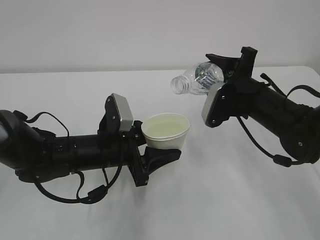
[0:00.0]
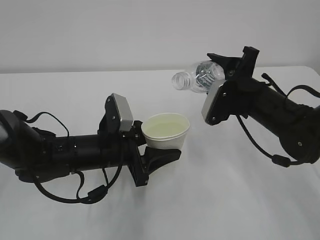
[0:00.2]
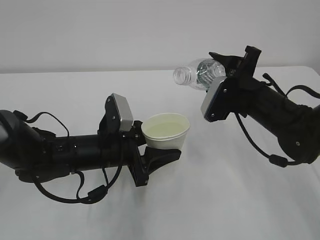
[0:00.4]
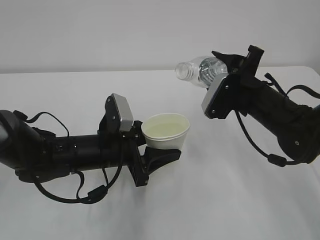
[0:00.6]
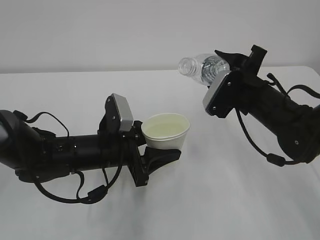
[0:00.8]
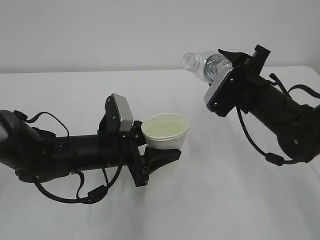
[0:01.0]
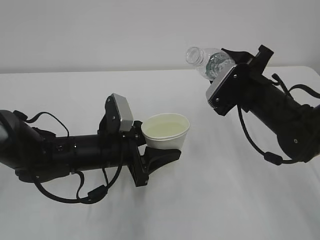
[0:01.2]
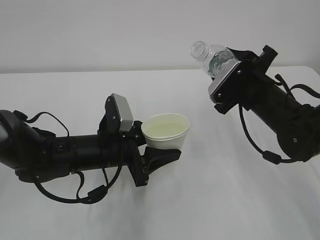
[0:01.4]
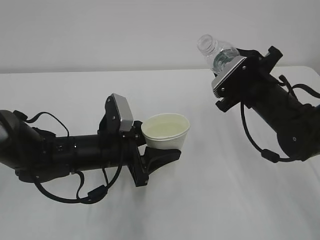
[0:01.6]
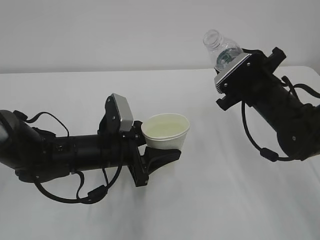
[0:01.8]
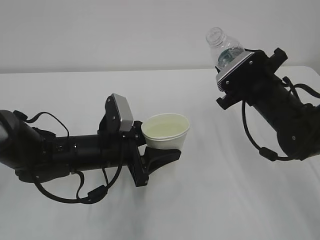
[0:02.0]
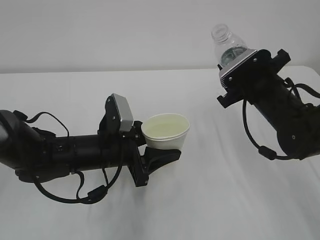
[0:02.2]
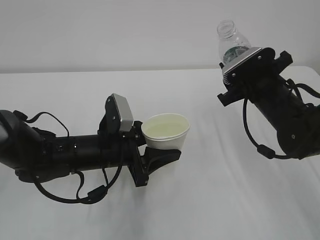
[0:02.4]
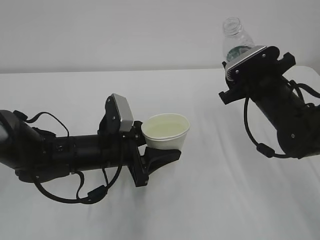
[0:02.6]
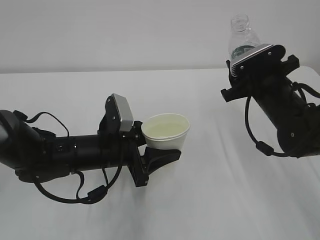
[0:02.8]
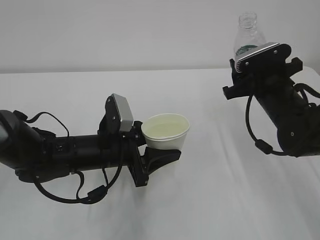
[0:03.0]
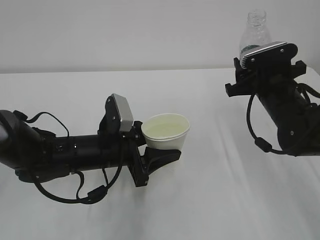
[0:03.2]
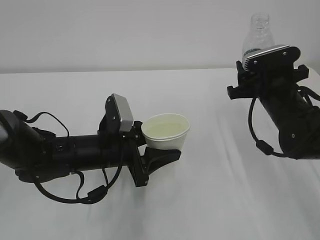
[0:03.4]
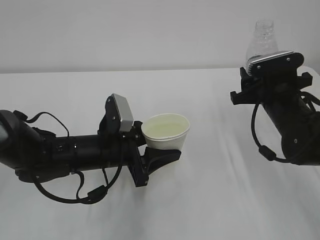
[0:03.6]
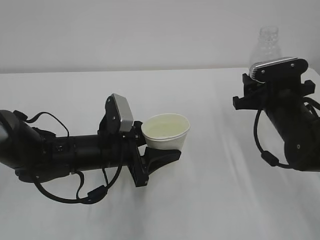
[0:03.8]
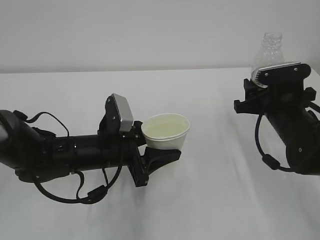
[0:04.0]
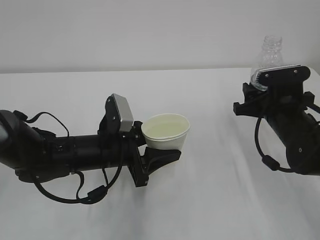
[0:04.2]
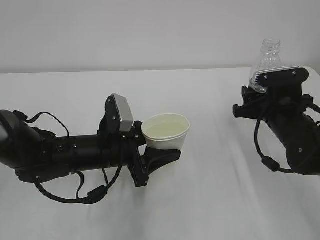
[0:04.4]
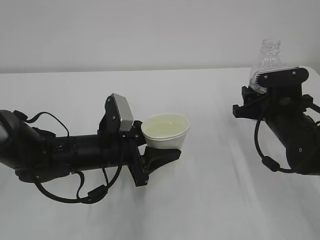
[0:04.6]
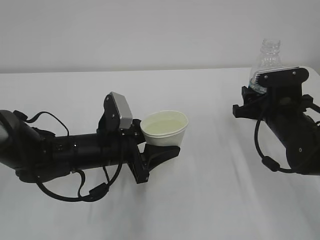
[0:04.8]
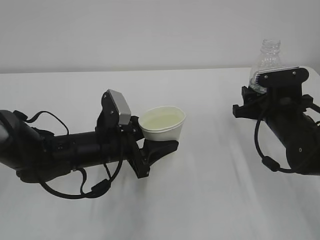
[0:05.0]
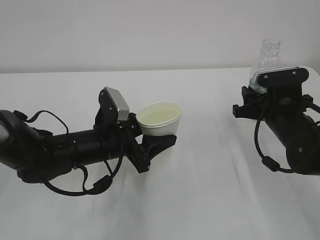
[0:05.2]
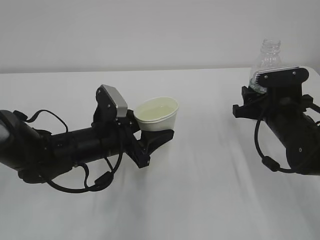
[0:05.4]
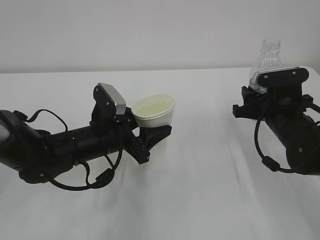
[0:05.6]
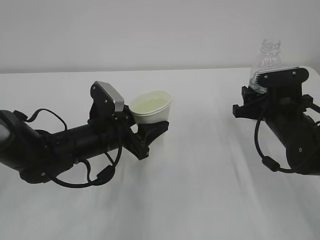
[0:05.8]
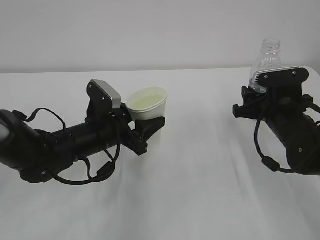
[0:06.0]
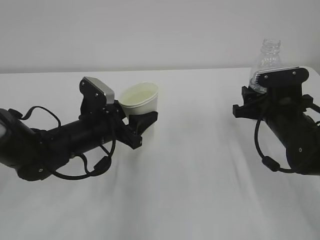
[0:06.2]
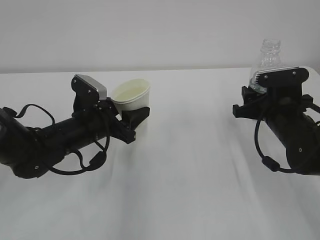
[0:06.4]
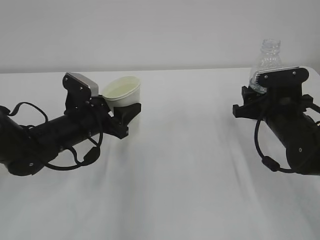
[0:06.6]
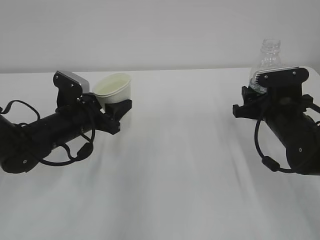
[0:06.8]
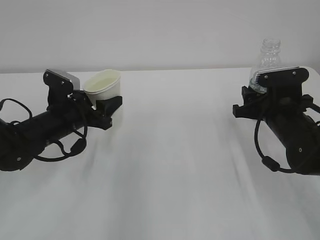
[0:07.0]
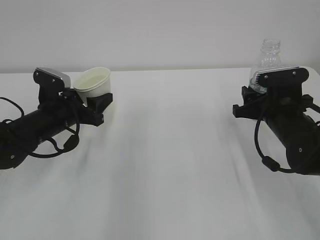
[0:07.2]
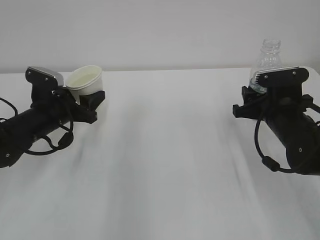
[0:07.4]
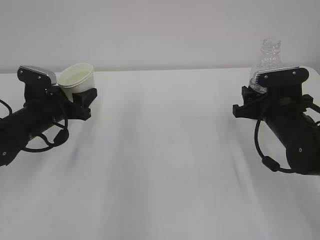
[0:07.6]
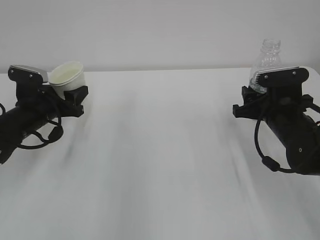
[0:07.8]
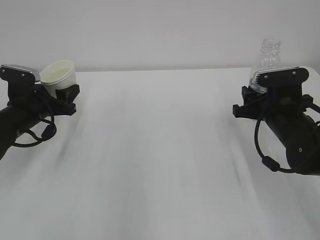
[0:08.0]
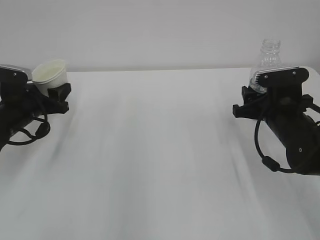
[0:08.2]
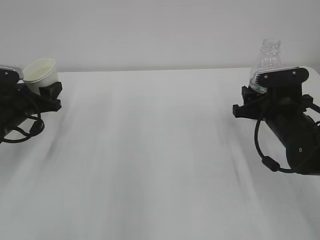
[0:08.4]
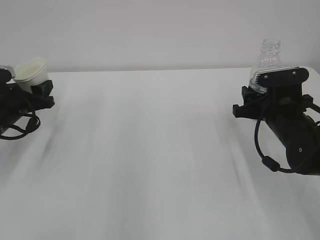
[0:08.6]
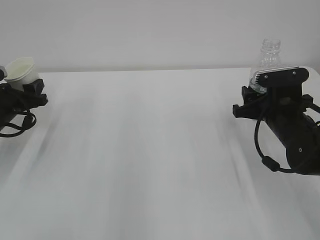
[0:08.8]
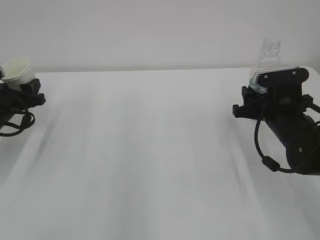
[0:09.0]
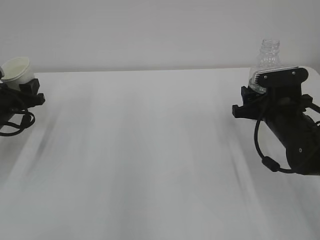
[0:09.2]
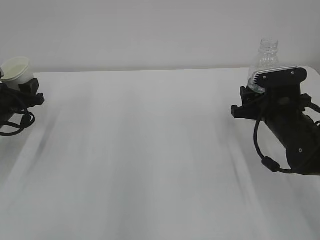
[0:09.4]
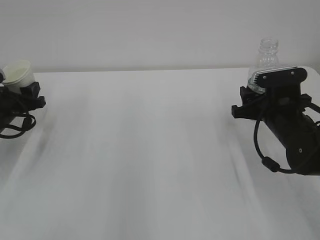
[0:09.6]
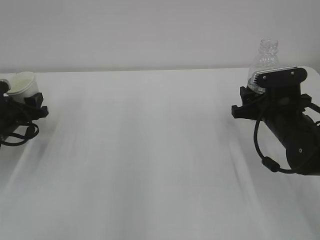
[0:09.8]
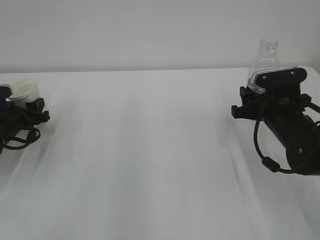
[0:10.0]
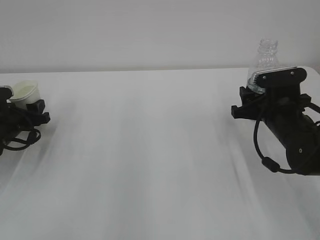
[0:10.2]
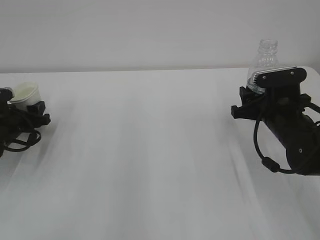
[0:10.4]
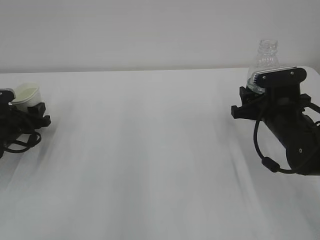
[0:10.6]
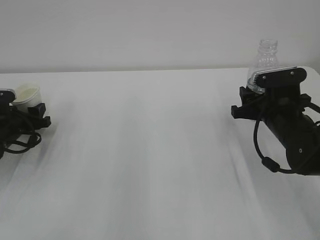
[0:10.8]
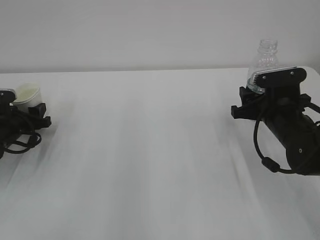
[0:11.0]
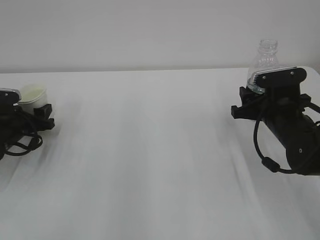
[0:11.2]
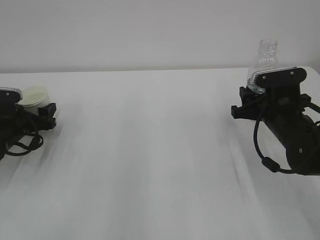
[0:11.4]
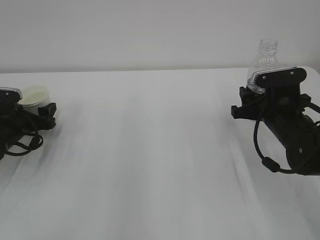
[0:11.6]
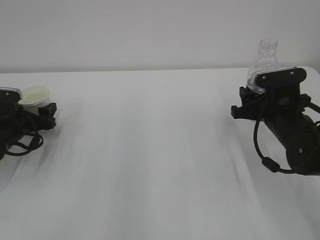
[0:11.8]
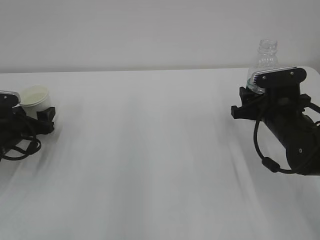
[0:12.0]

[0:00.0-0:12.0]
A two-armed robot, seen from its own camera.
0:04.4 to 0:06.0: There are only small adjustments of the grippers.
0:06.0 to 0:07.6: The left gripper travels to the left and forward by about 15 cm.
0:07.6 to 0:09.0: The left gripper is displaced to the left by about 10 cm.
0:09.0 to 0:10.4: The grippers move only a little.
0:10.4 to 0:12.0: The left gripper opens up.

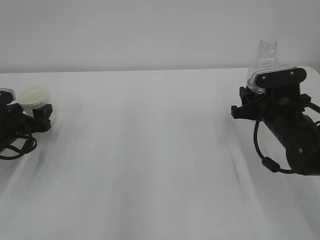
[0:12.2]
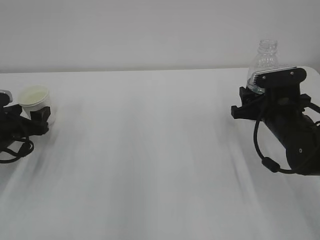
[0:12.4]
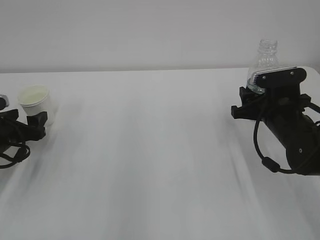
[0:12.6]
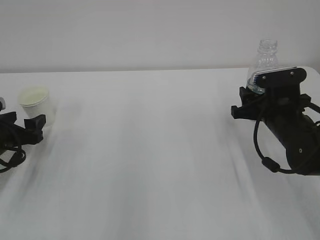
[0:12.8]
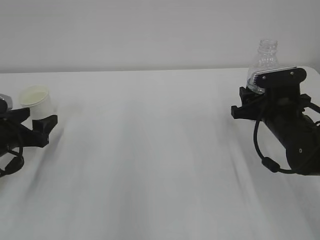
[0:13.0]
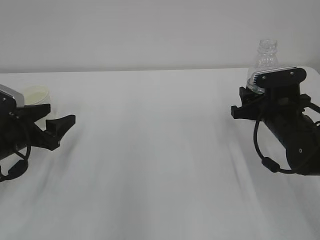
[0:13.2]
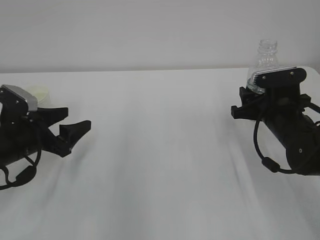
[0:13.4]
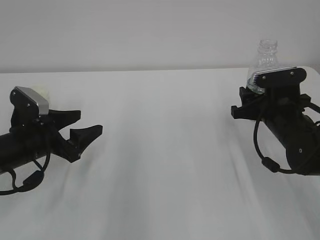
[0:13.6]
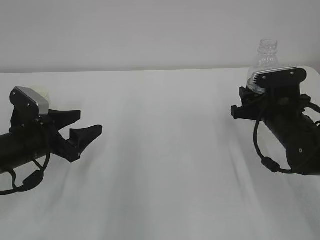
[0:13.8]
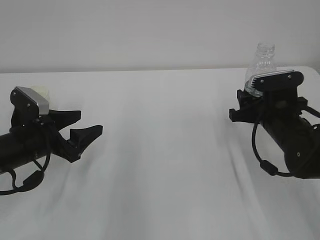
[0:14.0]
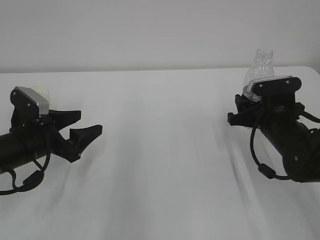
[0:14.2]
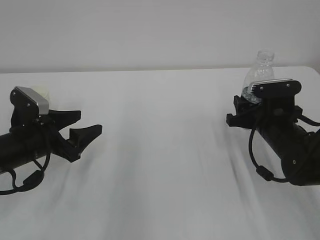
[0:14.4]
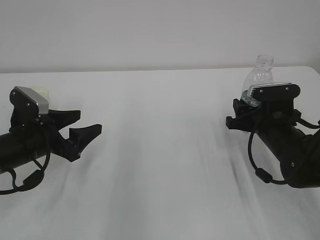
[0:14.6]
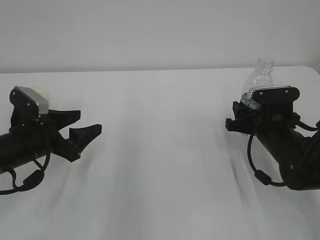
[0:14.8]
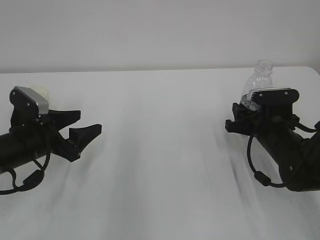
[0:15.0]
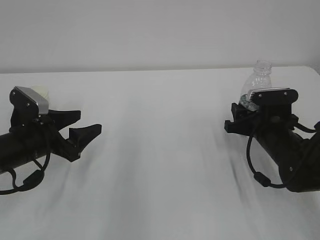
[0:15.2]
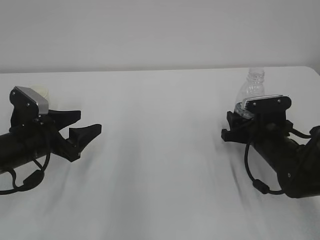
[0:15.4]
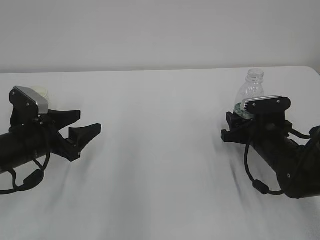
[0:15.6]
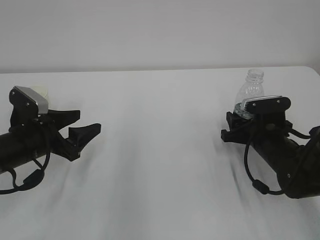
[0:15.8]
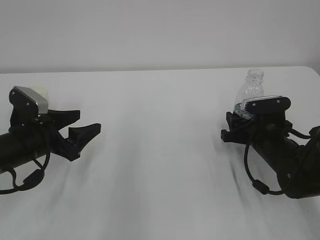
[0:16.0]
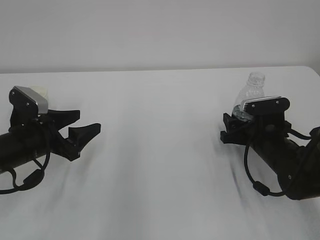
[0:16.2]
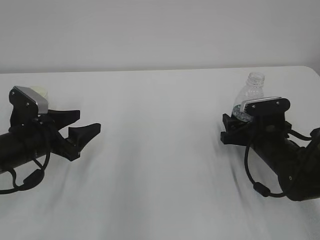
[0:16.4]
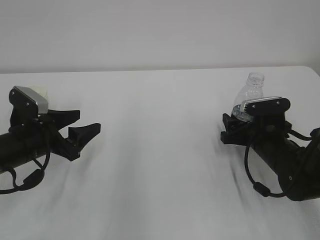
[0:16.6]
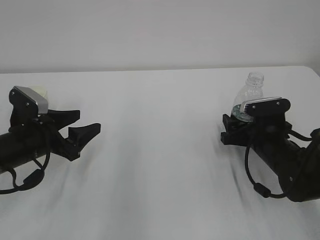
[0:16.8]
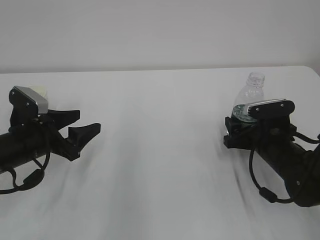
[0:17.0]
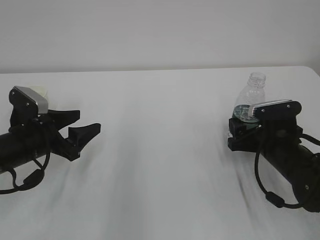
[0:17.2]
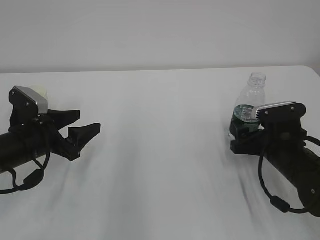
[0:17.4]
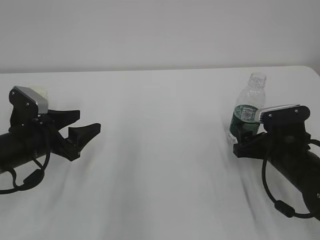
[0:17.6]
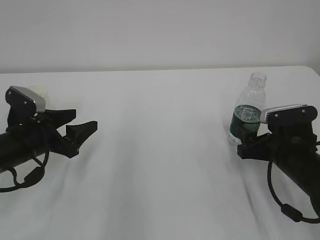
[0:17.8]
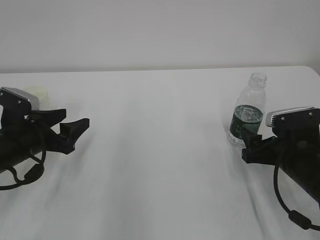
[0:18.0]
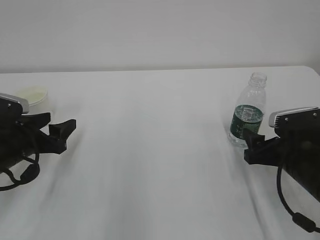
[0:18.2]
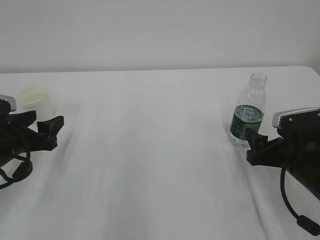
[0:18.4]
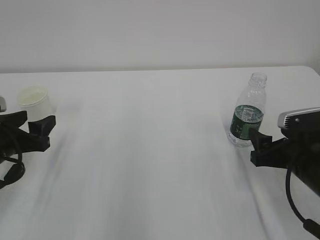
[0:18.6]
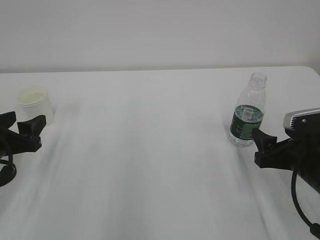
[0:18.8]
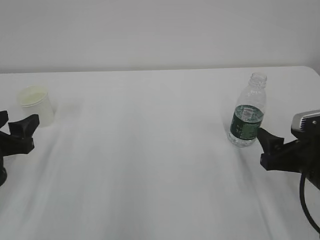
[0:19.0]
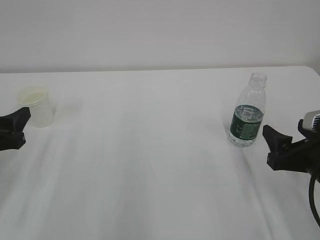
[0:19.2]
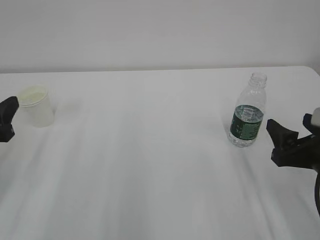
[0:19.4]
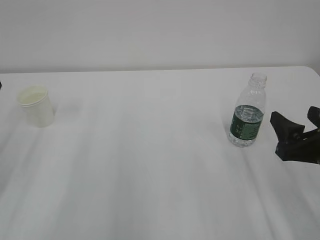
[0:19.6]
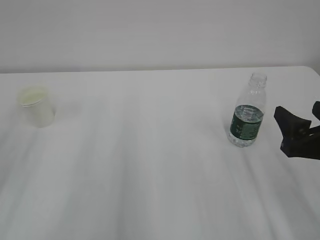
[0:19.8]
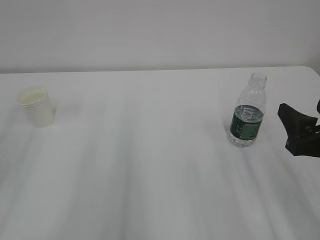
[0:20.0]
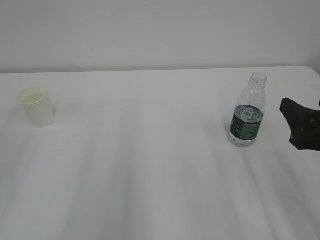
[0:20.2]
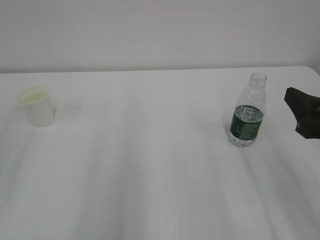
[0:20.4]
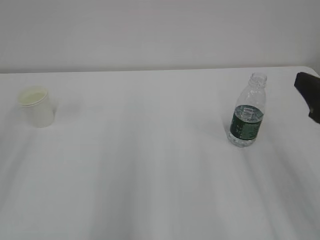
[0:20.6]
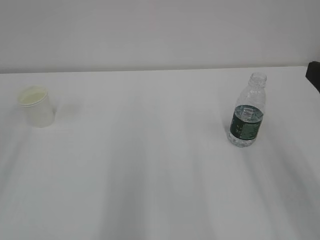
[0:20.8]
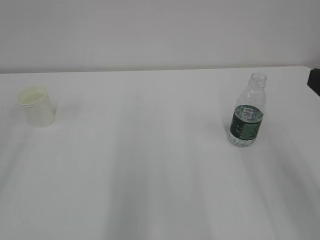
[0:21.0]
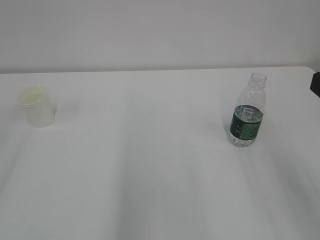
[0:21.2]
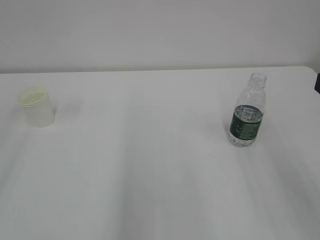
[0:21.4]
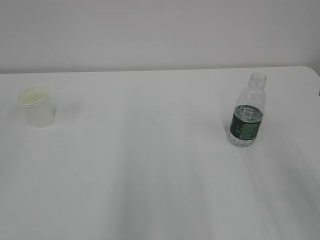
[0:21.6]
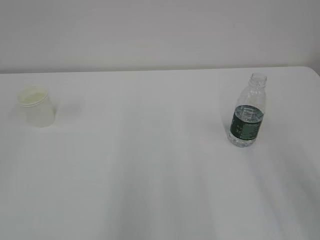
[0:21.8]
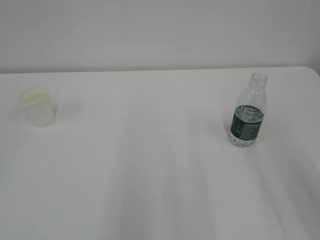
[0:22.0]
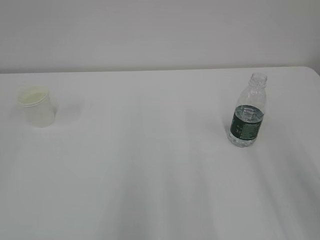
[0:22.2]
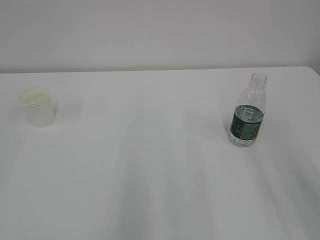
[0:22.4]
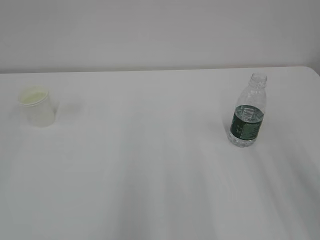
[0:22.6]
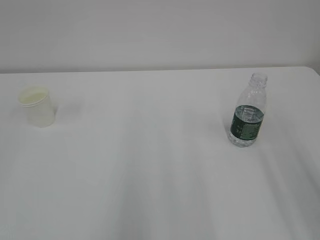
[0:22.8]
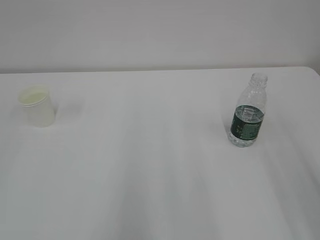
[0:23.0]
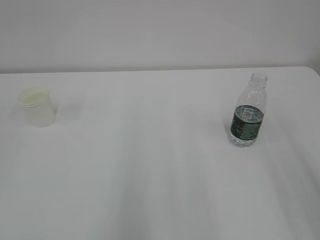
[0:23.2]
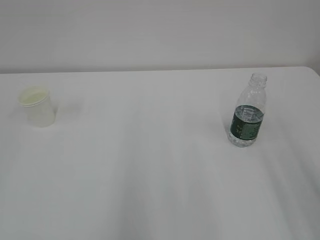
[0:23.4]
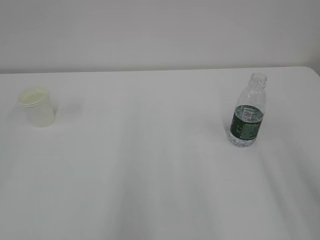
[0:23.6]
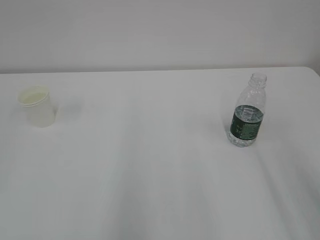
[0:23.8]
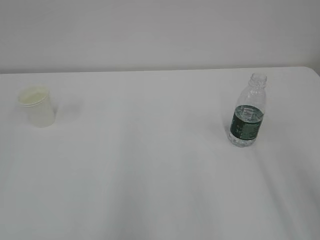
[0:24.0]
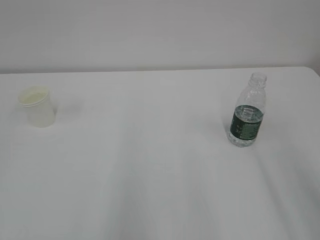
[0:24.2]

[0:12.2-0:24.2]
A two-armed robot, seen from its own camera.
0:12.2 to 0:13.8: The left gripper goes some 10 cm to the right and backward.
0:13.8 to 0:15.2: The grippers move only a little.
0:15.2 to 0:16.6: The right gripper opens up.
0:16.6 to 0:18.2: The right gripper is displaced backward by approximately 5 cm.
0:18.2 to 0:19.8: The left gripper shifts roughly 15 cm upward and backward. The right gripper heads upward and backward, covering approximately 10 cm.
0:19.8 to 0:21.2: The right gripper goes about 15 cm upward and backward.
